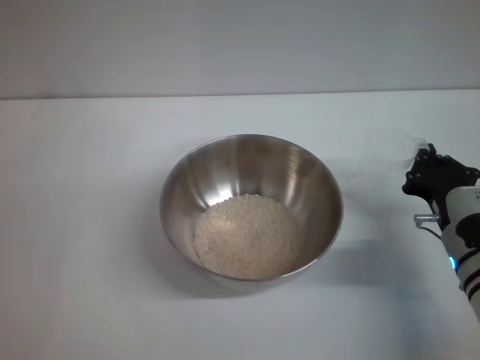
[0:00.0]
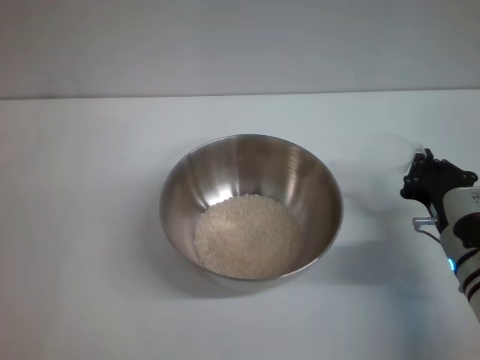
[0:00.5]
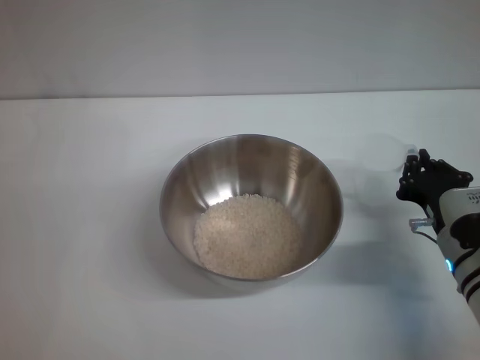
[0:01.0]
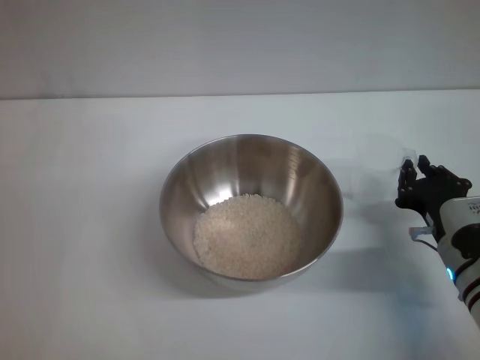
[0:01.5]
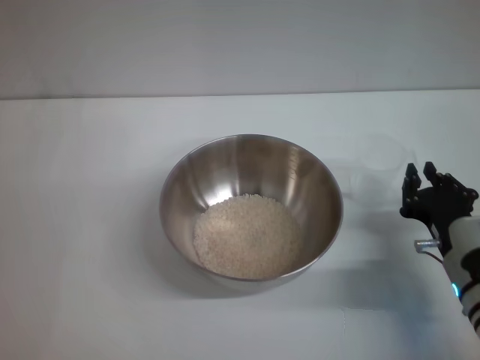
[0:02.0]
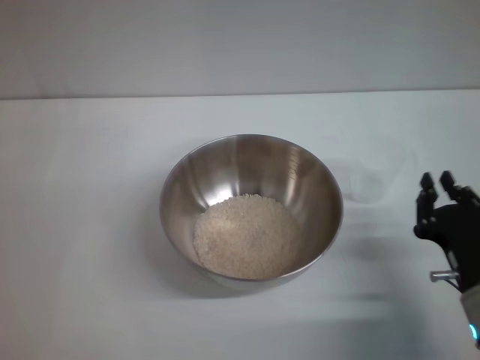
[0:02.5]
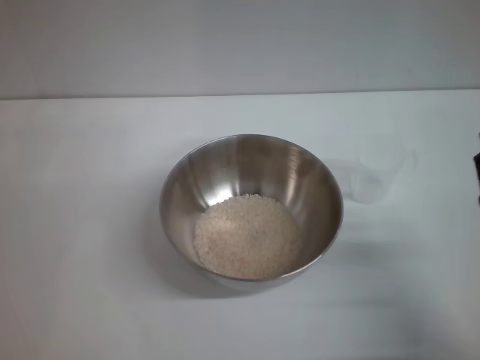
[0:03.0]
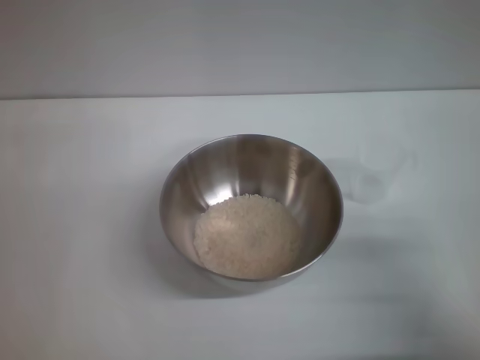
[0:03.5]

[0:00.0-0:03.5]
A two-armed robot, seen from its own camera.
Task of the whole recording: Place the bowl in the middle of the table with one hand and pour the rice from the grain cup into it with the other hand.
0:00.0 to 0:02.0: The right gripper opens its fingers.
0:02.0 to 0:03.5: The right gripper shifts approximately 5 cm backward, and opens up.
